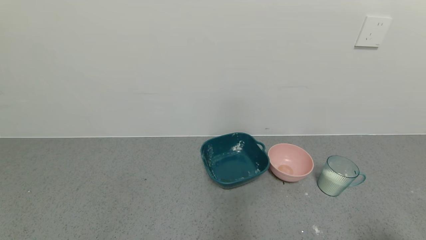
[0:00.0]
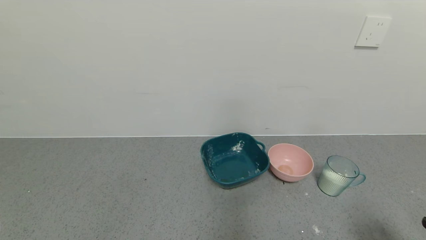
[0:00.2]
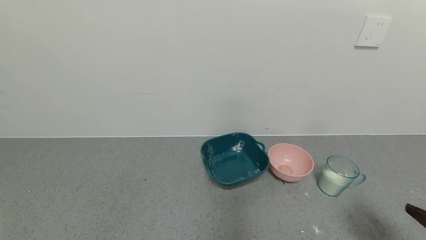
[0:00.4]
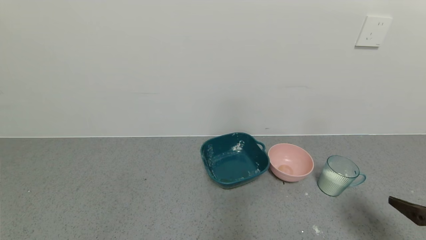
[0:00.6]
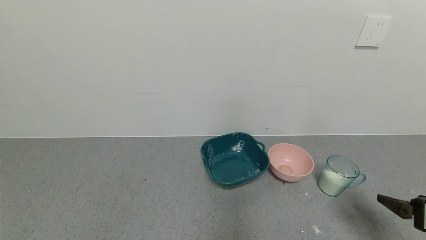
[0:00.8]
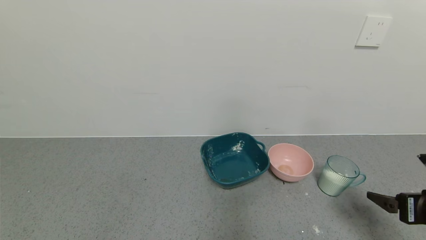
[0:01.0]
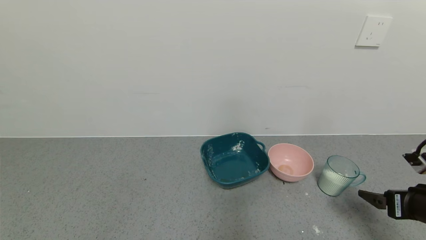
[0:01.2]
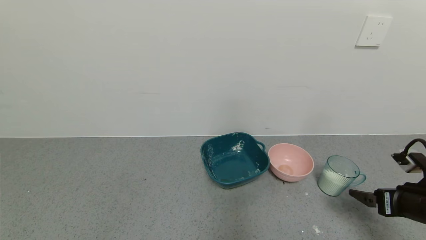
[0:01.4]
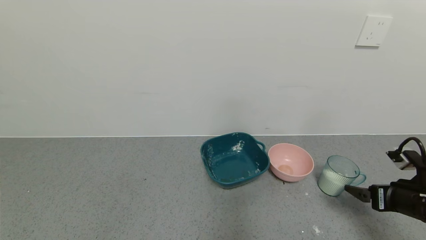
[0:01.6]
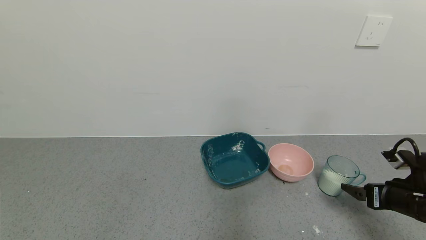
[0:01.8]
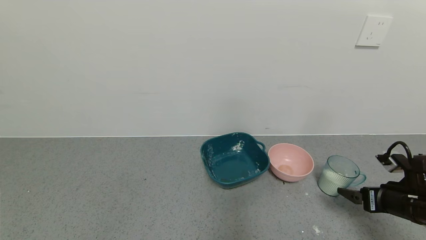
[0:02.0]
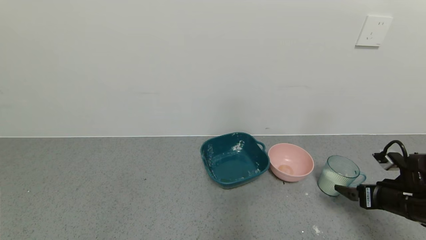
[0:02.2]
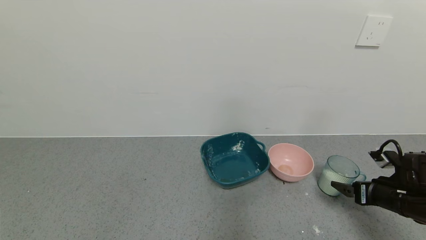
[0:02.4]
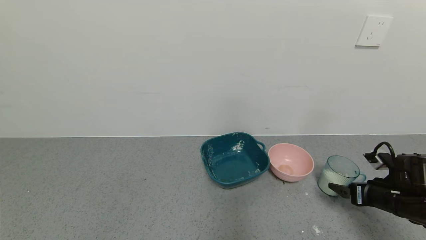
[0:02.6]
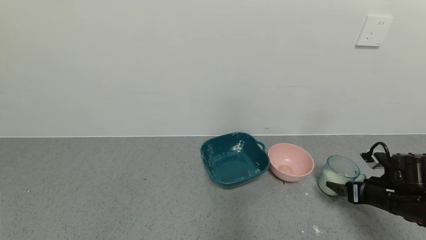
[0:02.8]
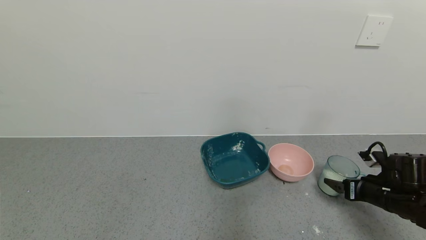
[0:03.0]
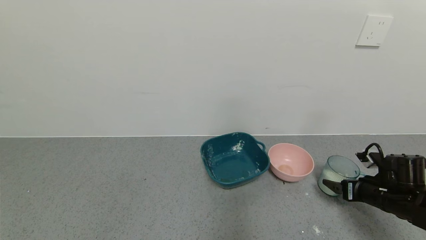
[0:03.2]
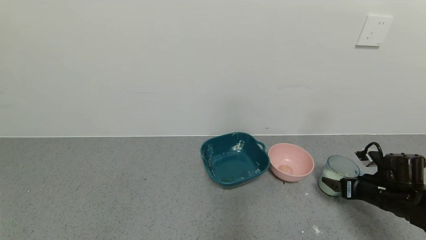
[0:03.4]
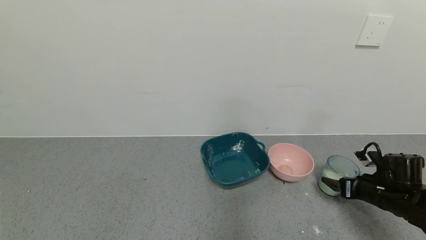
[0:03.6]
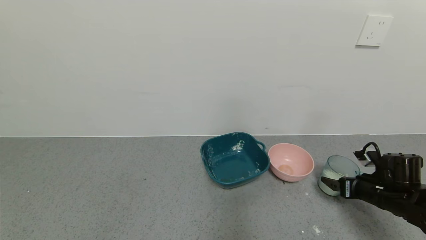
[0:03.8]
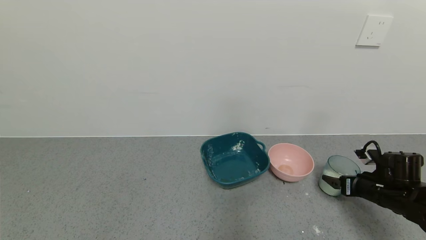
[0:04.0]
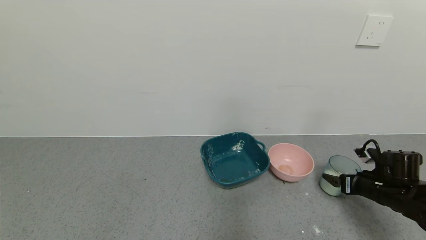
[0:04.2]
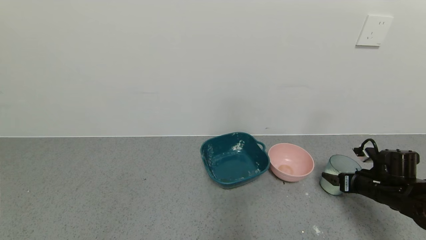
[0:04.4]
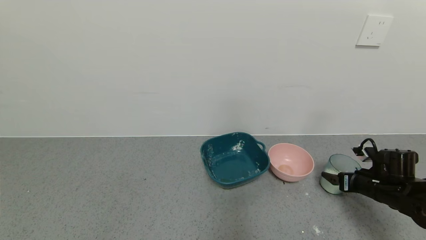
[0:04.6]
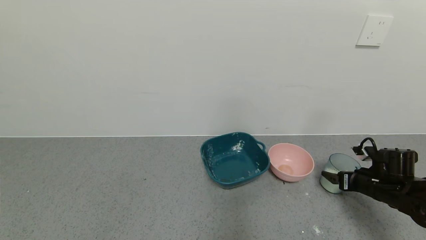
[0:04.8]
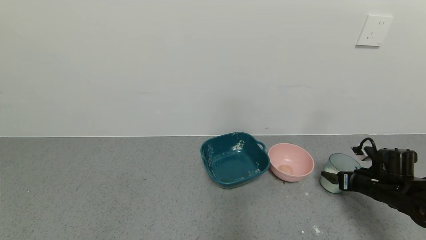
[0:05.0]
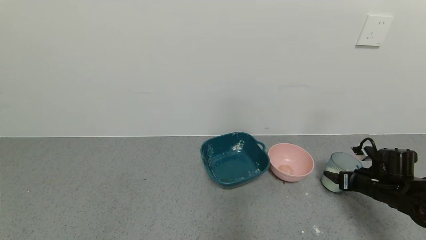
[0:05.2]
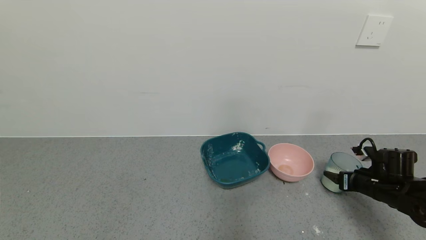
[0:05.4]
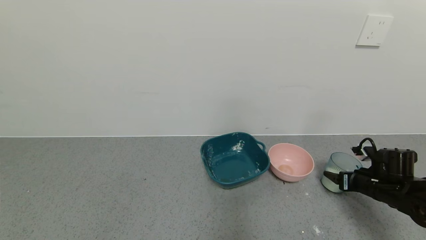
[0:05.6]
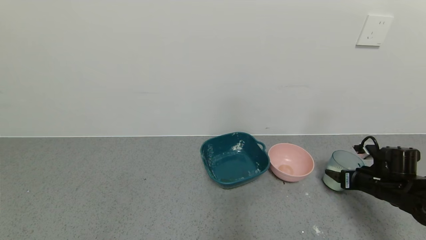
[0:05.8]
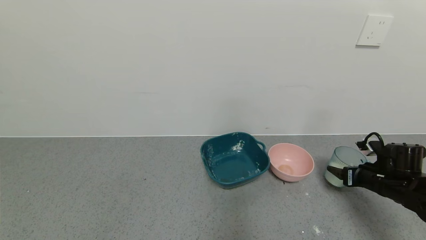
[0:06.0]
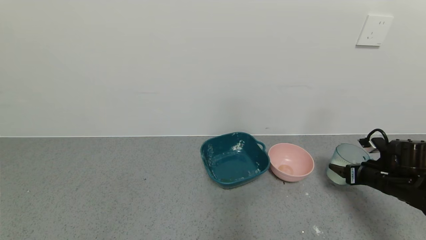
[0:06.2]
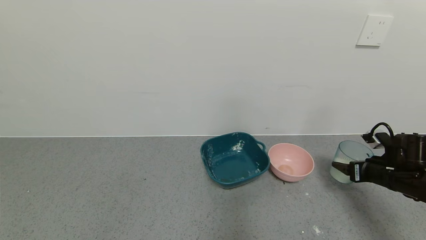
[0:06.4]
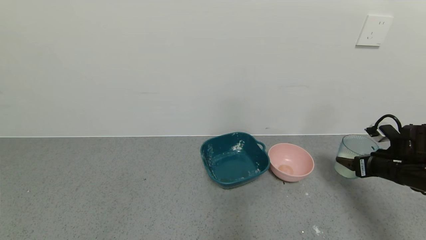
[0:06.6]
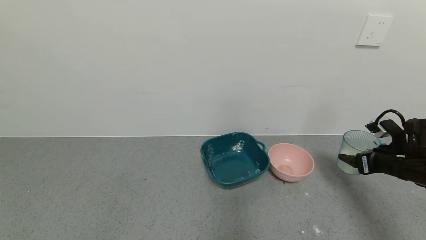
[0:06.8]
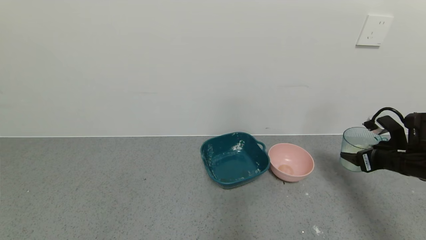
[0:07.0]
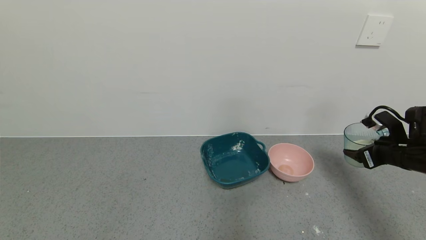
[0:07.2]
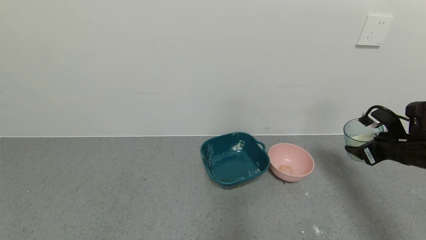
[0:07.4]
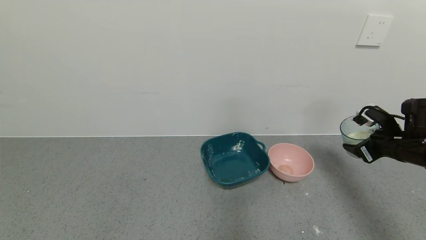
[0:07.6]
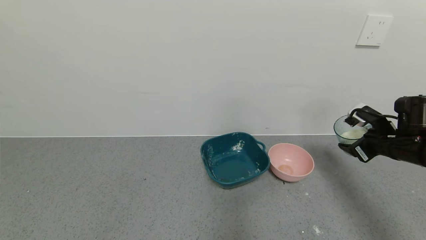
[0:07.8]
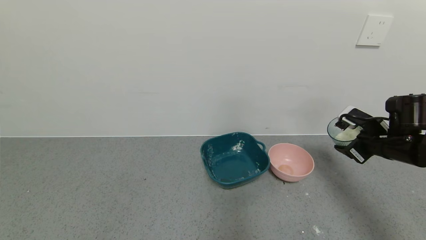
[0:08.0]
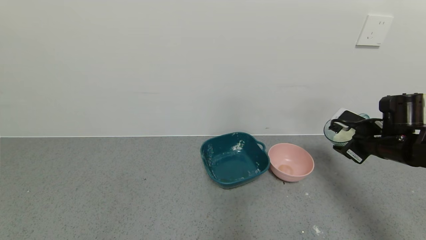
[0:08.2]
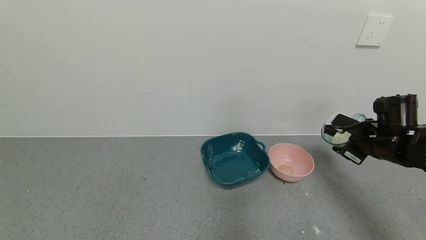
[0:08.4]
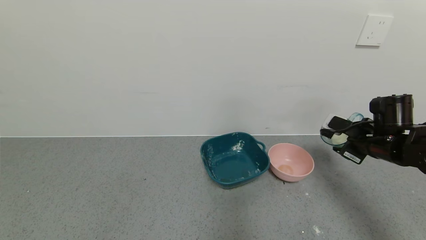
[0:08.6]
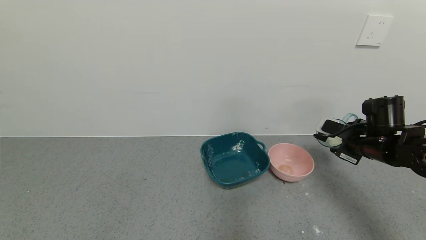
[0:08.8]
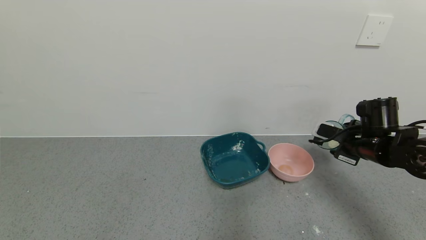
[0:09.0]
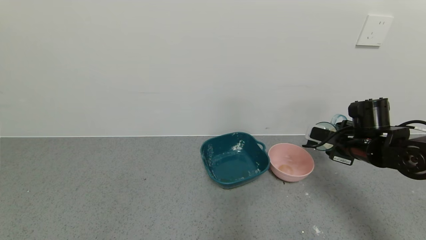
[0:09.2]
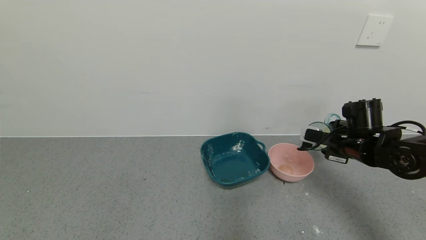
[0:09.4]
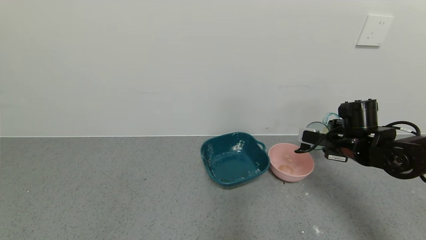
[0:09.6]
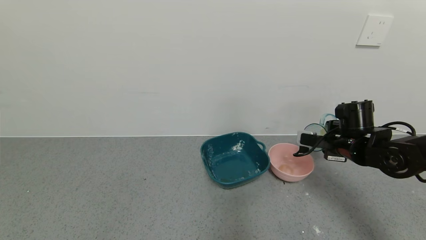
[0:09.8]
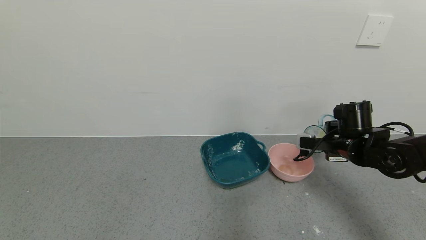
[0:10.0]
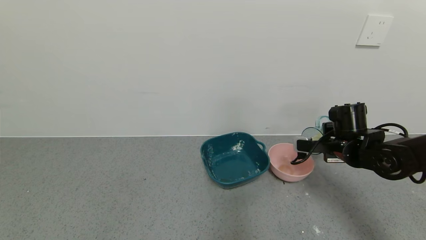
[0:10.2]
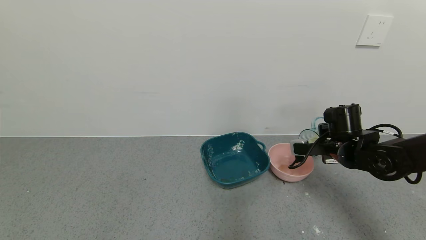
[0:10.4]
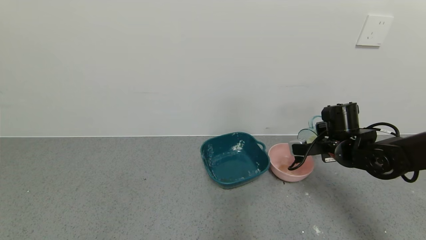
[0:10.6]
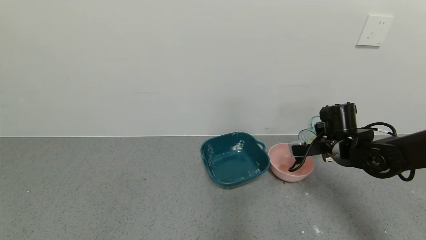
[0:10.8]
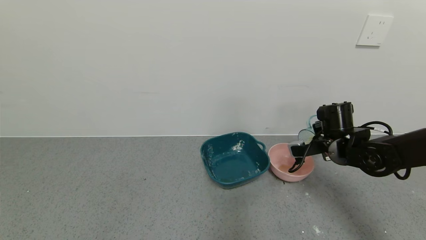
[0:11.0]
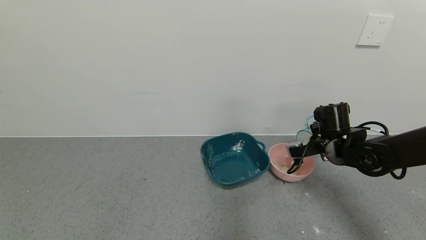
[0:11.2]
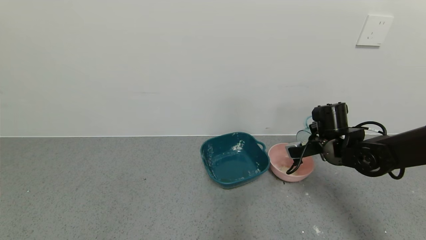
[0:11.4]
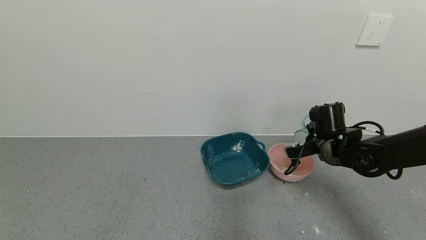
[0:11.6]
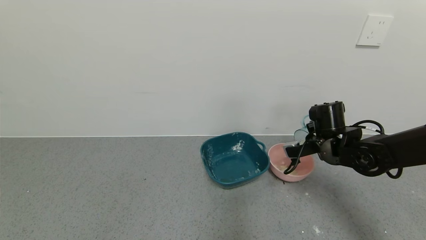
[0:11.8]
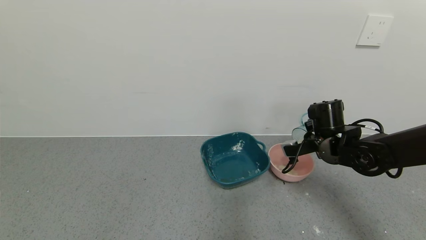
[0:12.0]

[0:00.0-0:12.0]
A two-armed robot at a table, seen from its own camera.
Task of the whole recording: use a gripper to pick up the cup and pour the powder into a bowl or tray.
Step, 0:00.0 to 0:05.2: Grasp the glass of powder with the right gripper.
0:00.0 to 0:01.6: The right gripper is displaced forward by approximately 20 cm.
0:01.6 to 0:03.0: The right gripper goes roughly 10 cm forward and downward.
0:03.0 to 0:04.4: The grippers stay close to where they were, moving slightly.
0:04.4 to 0:06.0: The right gripper closes up.
0:06.0 to 0:07.6: The right gripper travels upward by about 10 cm.
0:07.6 to 0:09.0: The right gripper shifts roughly 5 cm to the left.
0:09.0 to 0:10.4: The right gripper ends up some 5 cm from where it was.
0:10.4 to 0:12.0: The grippers make only small movements.

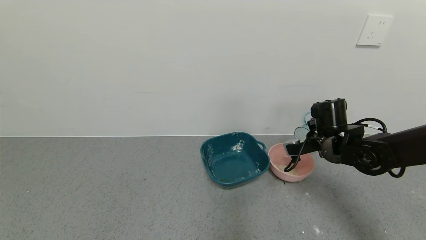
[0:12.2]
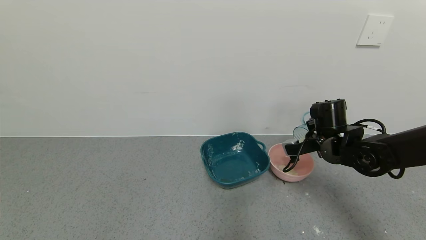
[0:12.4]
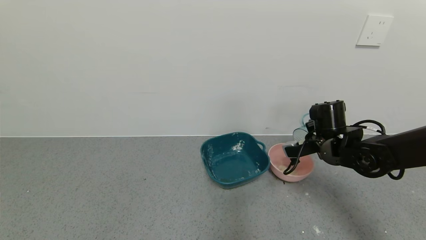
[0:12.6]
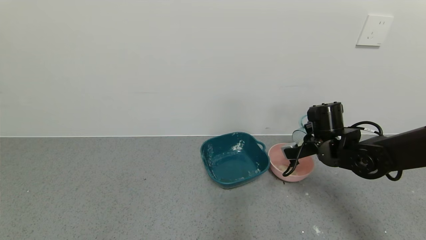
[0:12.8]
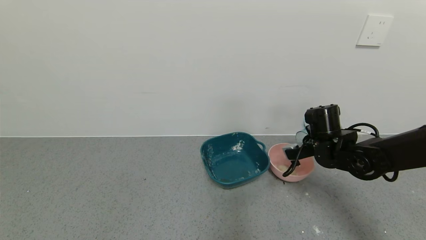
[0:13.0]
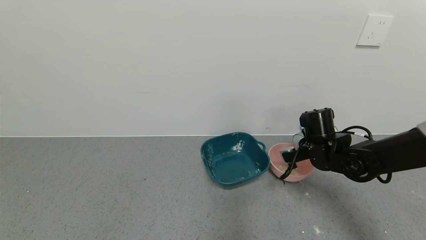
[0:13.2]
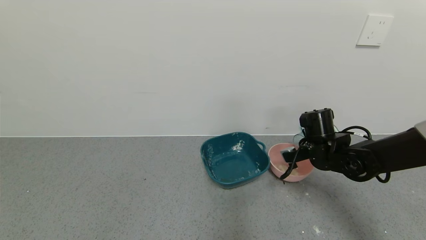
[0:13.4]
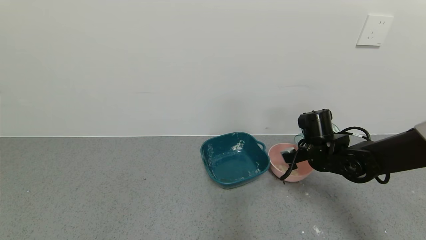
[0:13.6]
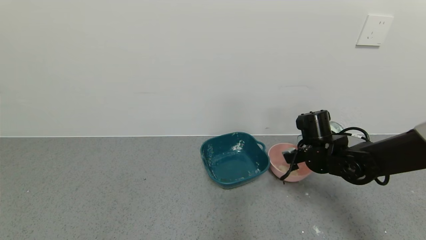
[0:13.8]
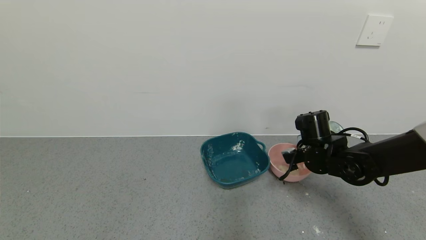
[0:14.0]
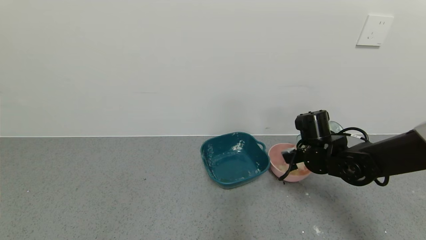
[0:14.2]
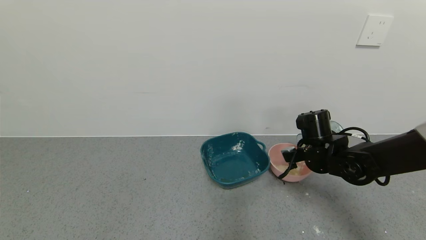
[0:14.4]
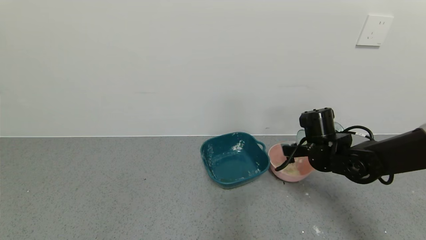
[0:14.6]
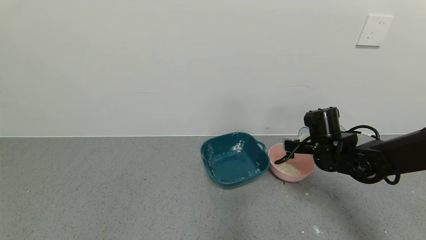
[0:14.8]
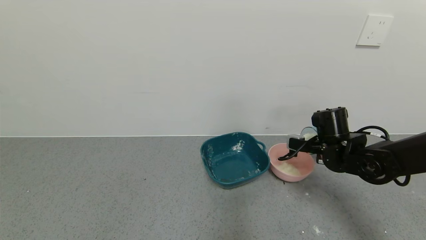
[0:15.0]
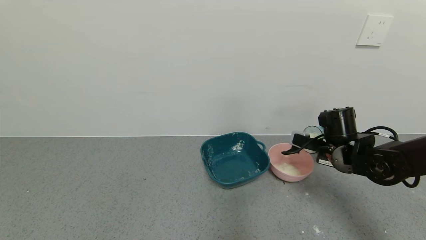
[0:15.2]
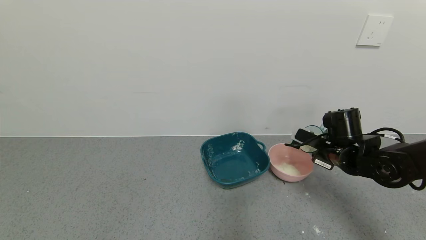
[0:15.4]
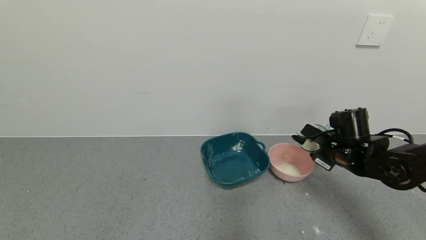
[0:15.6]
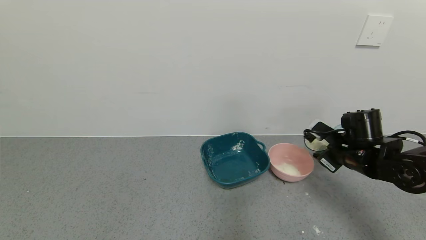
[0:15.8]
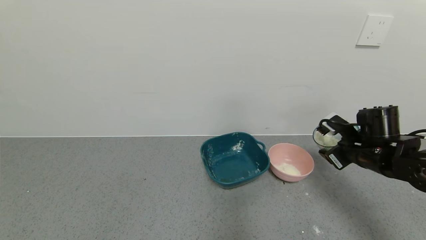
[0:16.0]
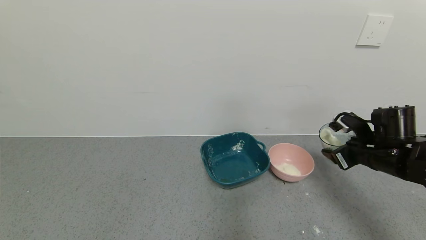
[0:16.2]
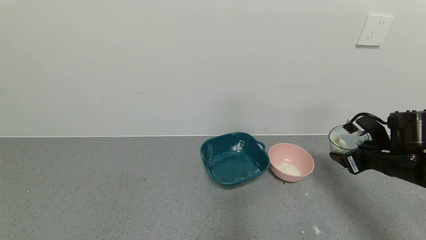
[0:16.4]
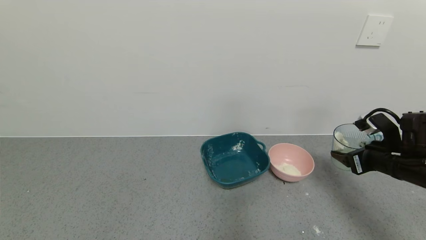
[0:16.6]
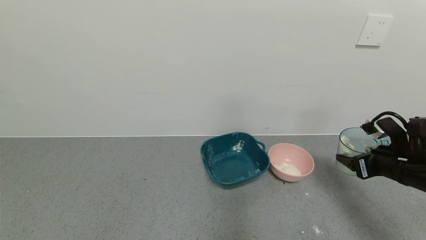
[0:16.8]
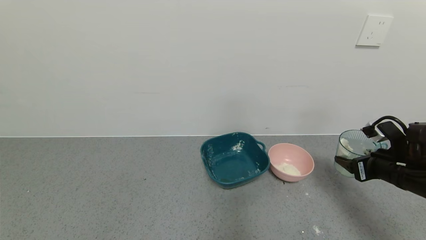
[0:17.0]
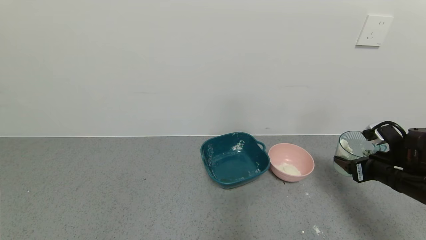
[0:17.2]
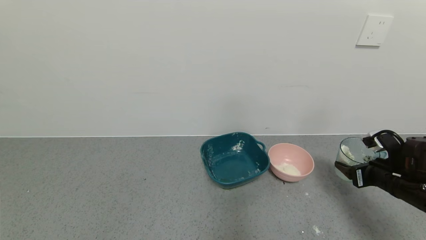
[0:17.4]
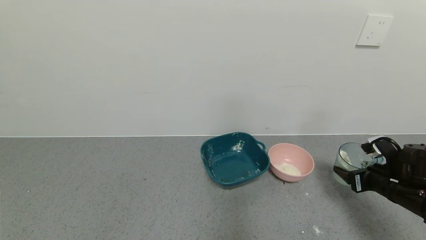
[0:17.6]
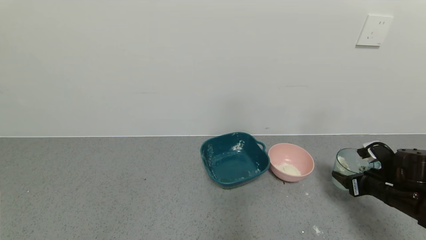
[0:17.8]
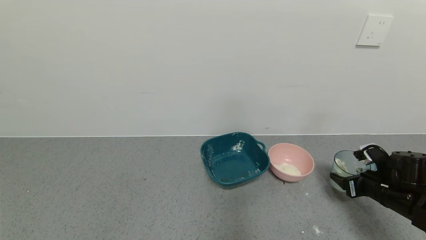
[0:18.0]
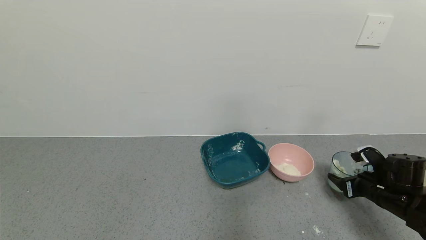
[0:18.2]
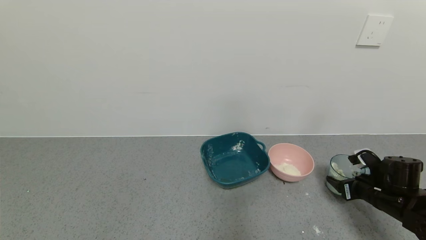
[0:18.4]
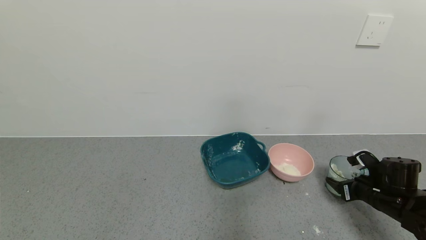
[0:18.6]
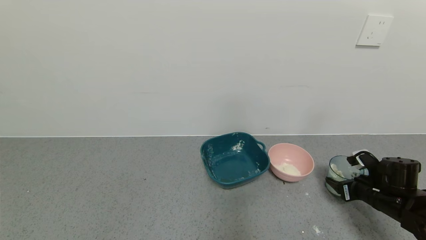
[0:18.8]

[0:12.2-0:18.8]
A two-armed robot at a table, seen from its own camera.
Task of the whole recording: use a gripper to pick up the cup and pour the powder into a bowl or tray.
Step, 0:12.2 to 0:14.8: Pour the powder into the pink bowl with the right gripper.
0:12.2 to 0:13.8: The grippers stay close to where they were, moving slightly.
0:15.4 to 0:17.2: The right gripper is displaced to the right and backward by some 10 cm.
0:17.2 to 0:18.8: The right gripper travels downward by approximately 10 cm.
